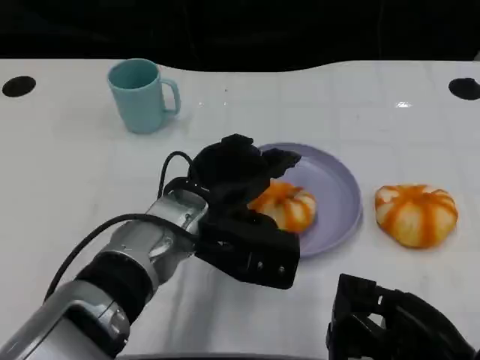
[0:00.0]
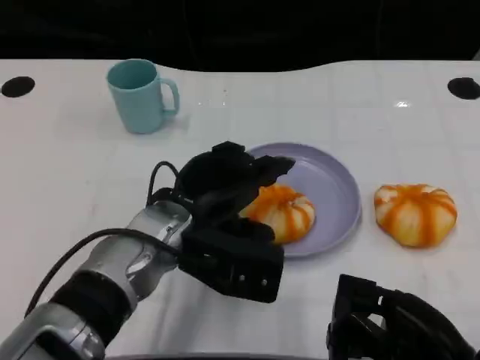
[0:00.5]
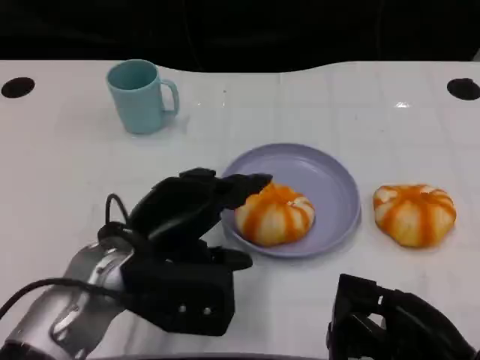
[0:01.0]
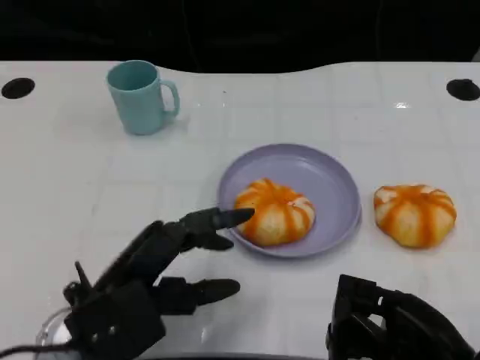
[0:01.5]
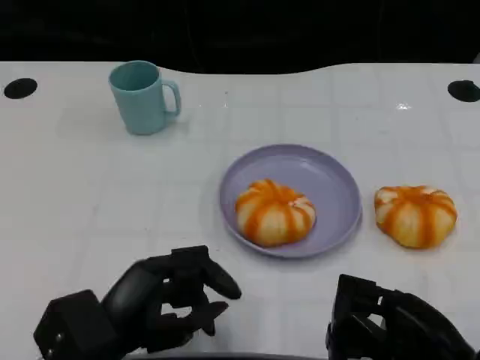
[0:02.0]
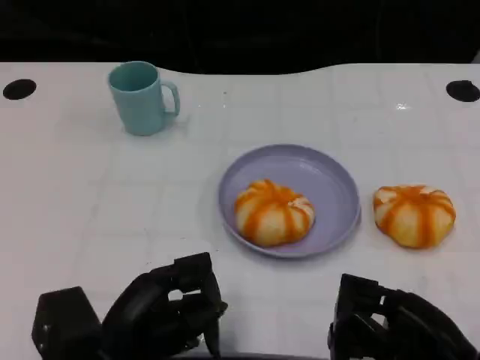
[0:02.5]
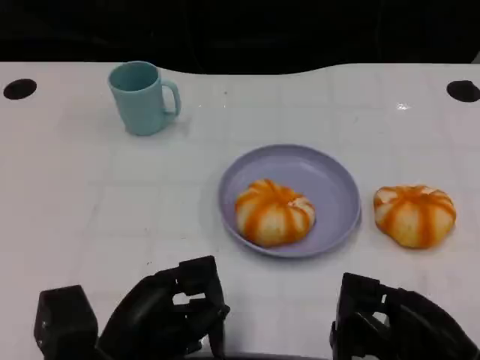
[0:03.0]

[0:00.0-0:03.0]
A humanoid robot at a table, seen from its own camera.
Task of the whole recording: Grasp the bread from the table and place it into the plate.
0.0 to 1.5 s: The left hand goes approximately 15 cm to the left and backward.

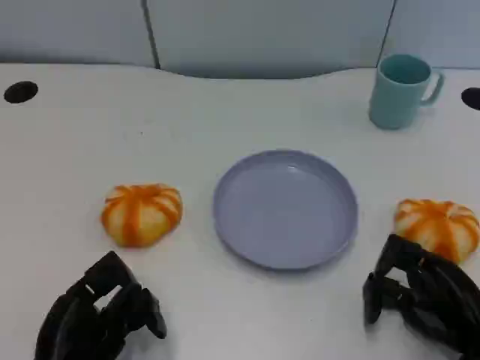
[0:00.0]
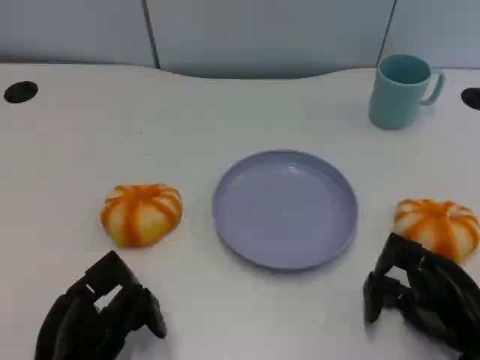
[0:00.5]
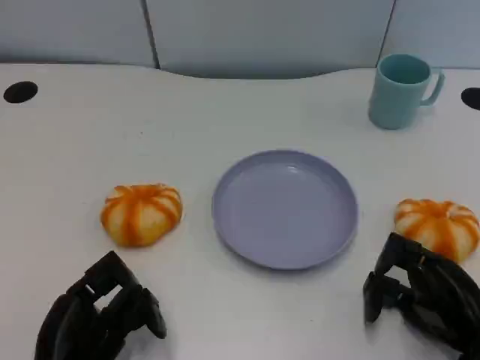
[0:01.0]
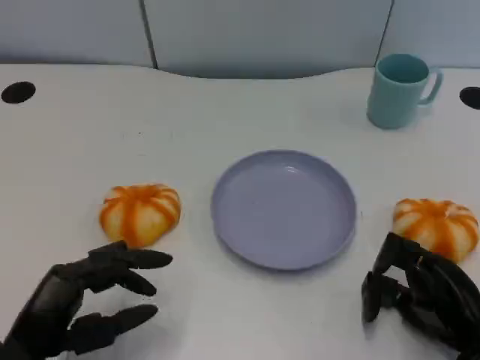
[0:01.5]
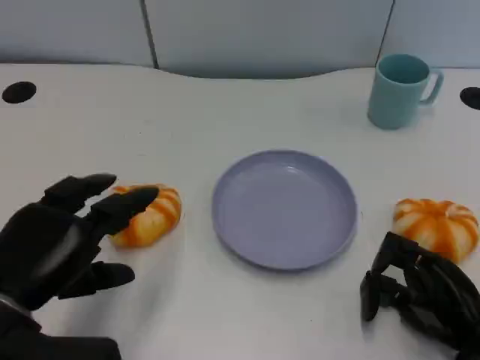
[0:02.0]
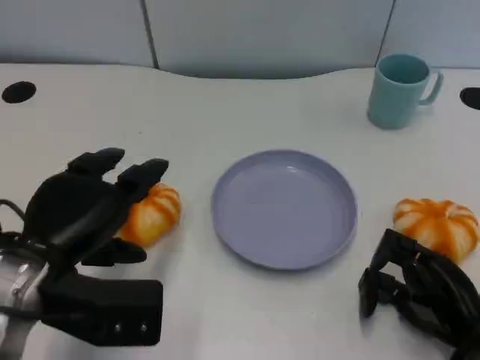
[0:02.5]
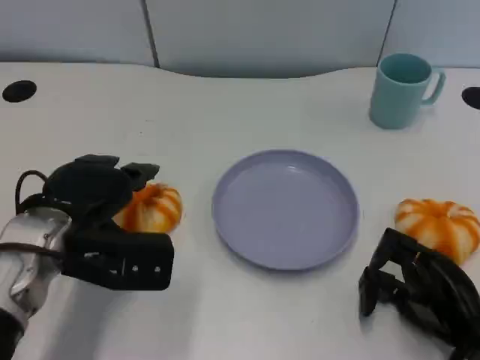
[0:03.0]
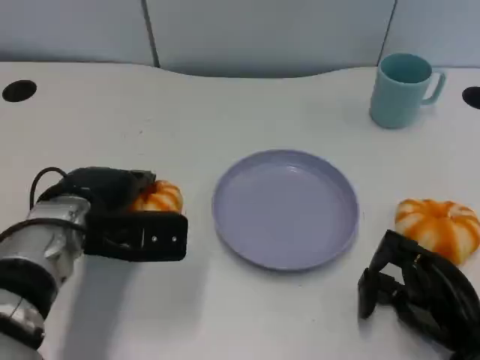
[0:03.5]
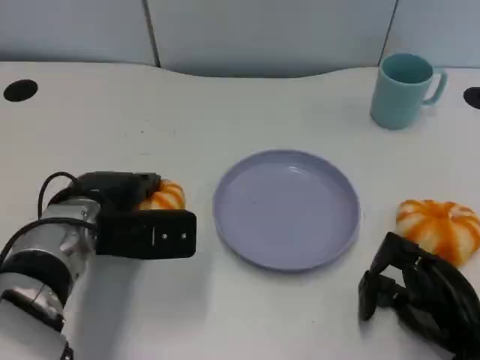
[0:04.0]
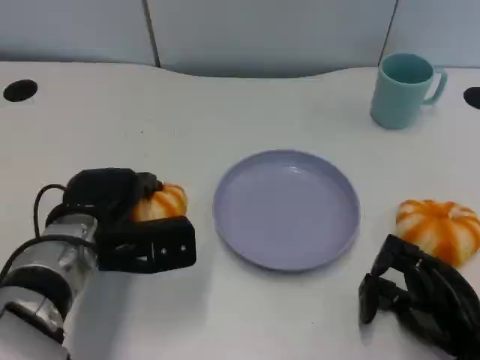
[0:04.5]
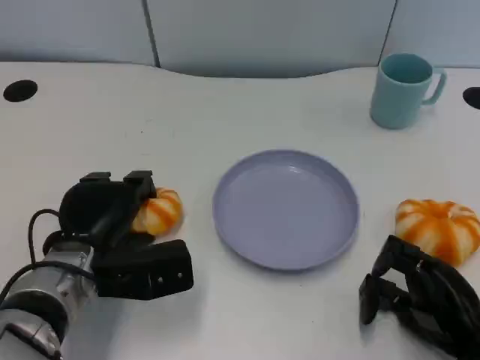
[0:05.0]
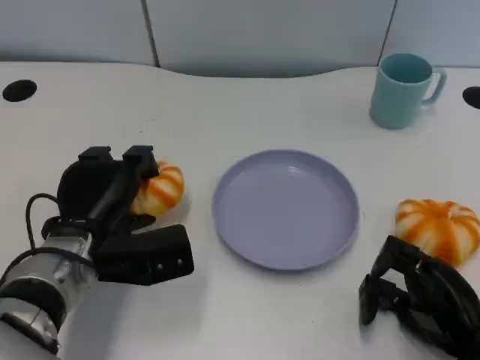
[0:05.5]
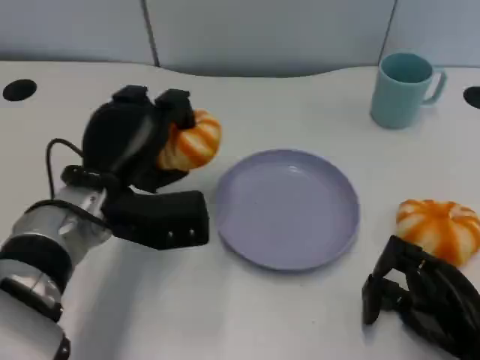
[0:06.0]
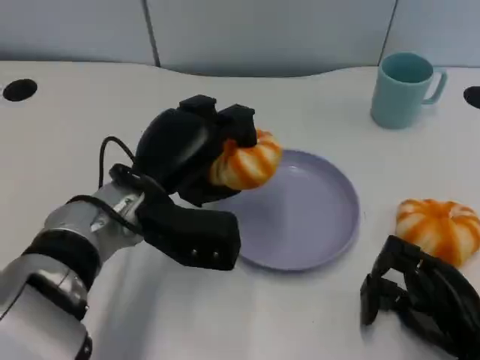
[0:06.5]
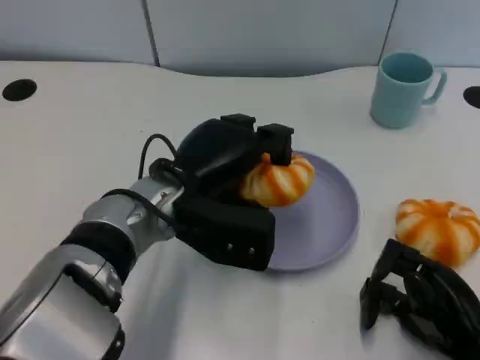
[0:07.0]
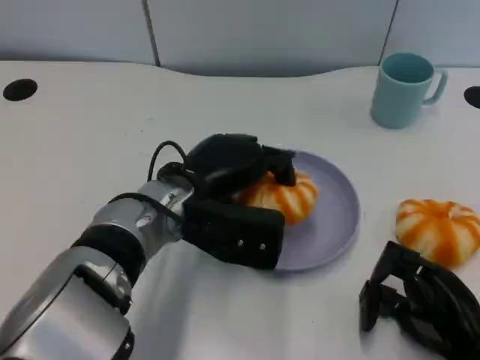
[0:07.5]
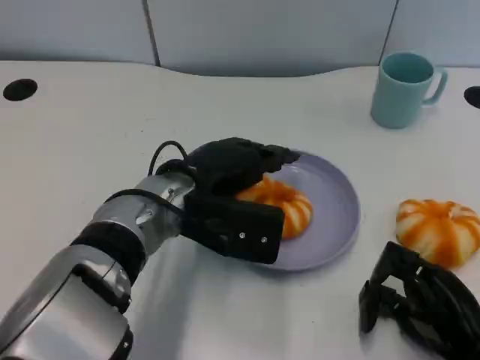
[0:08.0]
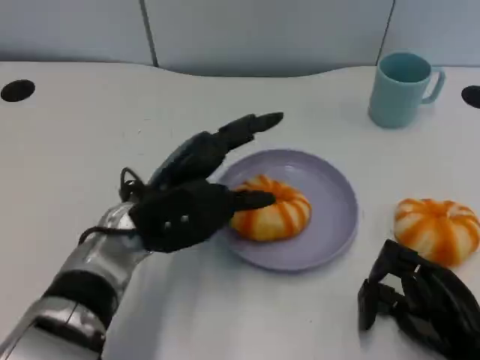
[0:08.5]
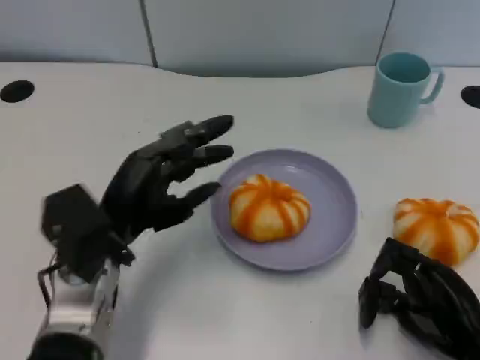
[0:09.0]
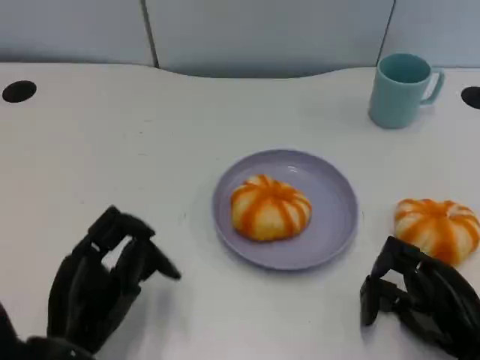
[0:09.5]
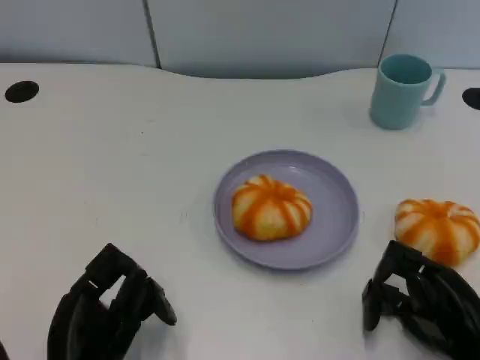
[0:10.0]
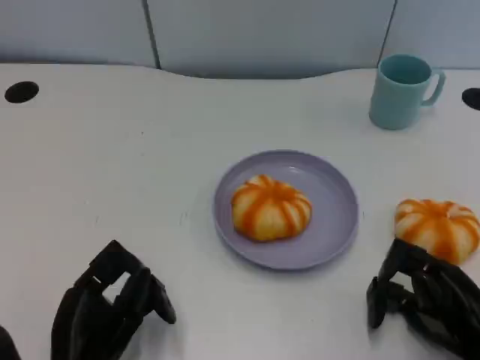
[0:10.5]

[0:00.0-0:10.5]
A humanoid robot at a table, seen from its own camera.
Task of the whole recording: Grasp the bread from the table and place it into the plate.
0.0 to 2.0 s: The left hand travels upward by some 10 cm.
2.0 to 4.0 s: The left hand travels forward and to the right by roughly 15 cm.
4.0 to 6.5 s: The left hand heads to the right, covering approximately 5 cm.
8.5 to 10.5 s: The left hand goes about 15 cm backward, downward and to the left.

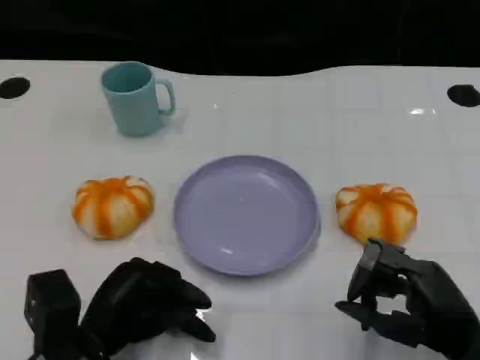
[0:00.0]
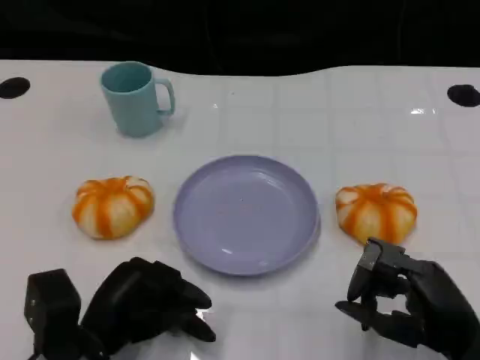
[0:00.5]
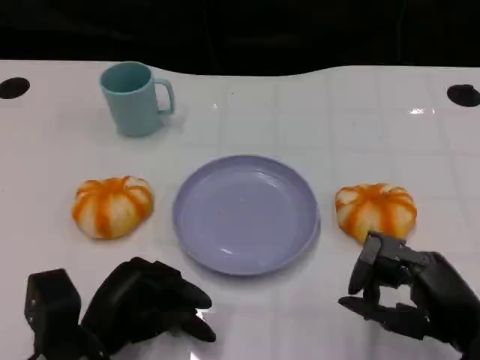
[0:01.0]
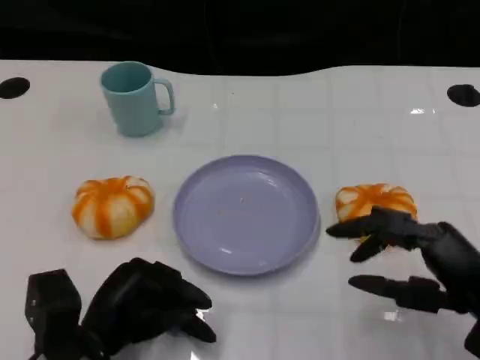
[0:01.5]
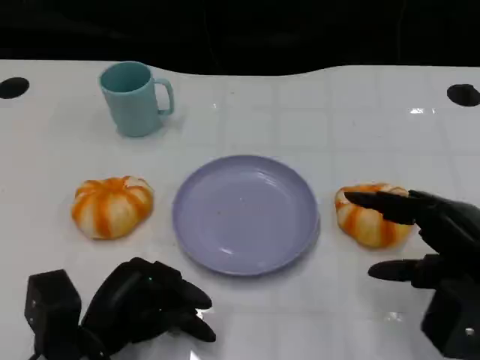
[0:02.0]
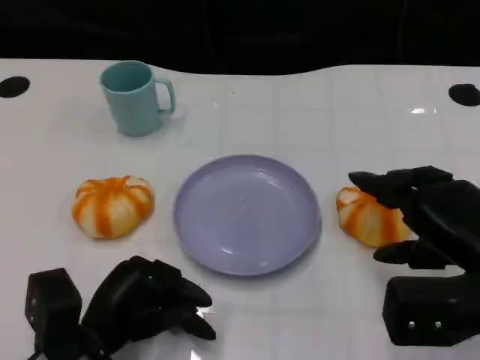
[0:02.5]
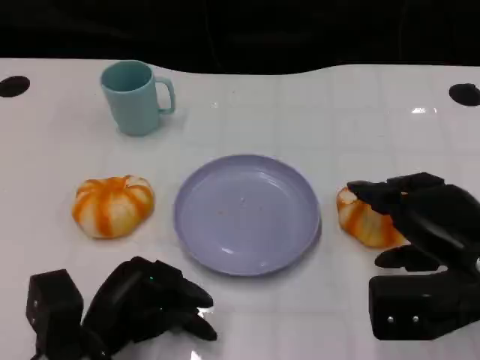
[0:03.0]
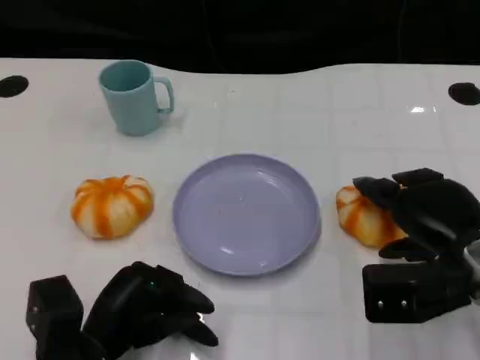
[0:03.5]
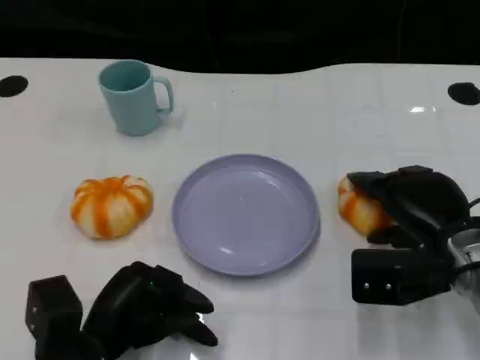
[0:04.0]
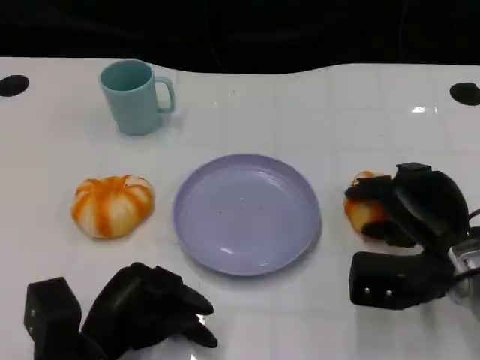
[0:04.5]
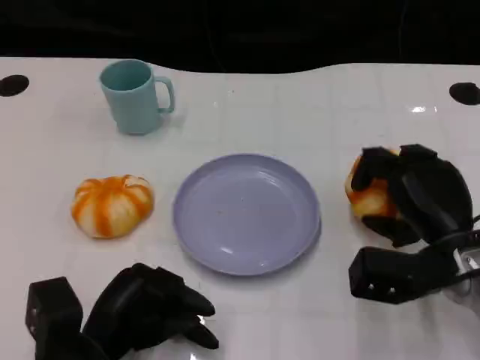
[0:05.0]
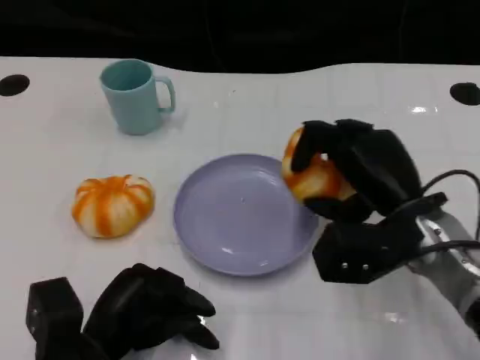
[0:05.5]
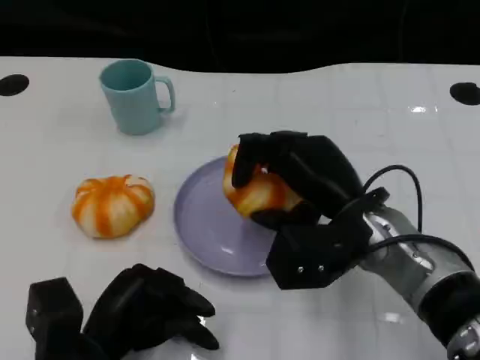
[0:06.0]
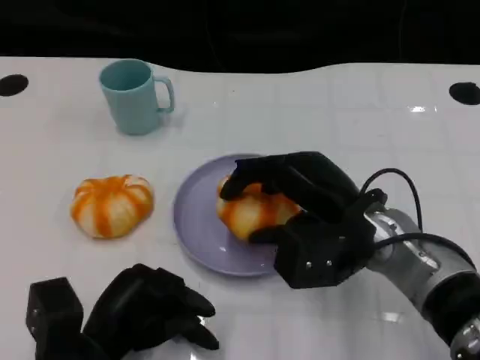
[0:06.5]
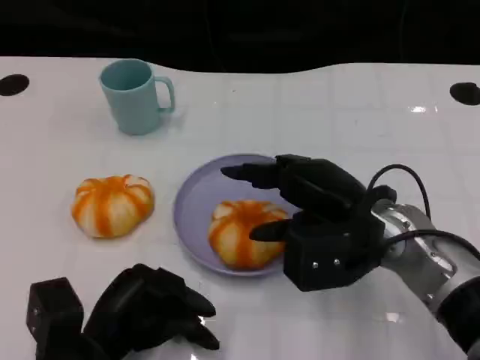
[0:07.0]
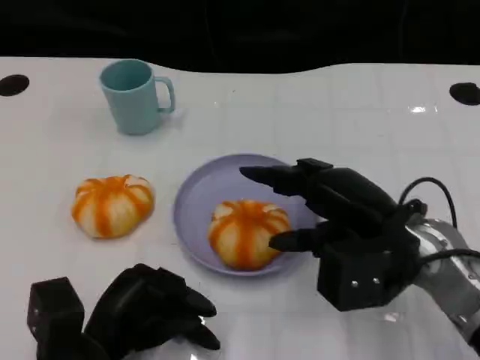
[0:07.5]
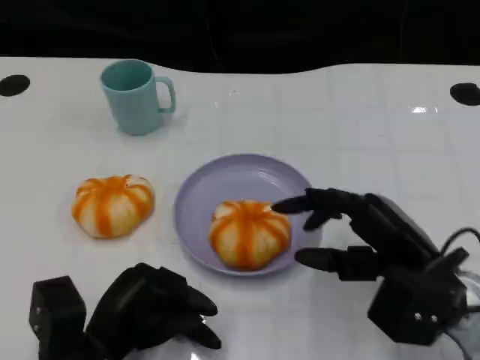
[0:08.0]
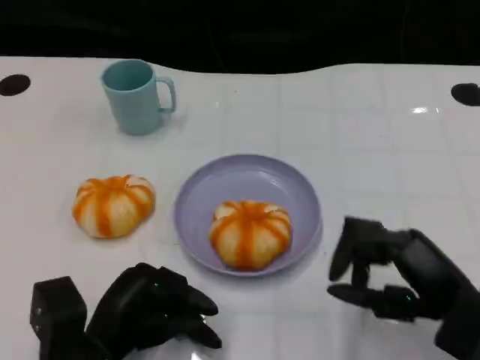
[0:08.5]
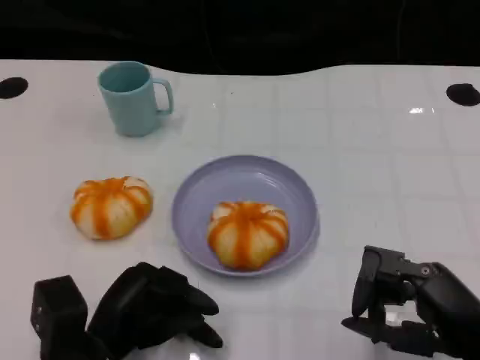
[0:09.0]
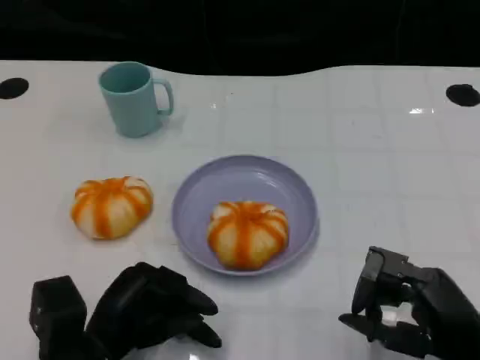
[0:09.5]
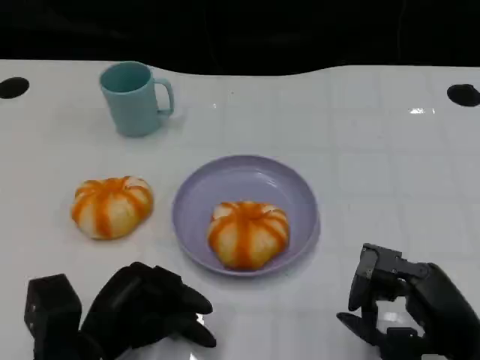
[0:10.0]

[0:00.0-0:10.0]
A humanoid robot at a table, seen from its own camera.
Task of the whole recording: Grasp the bread from the table and place it into the plate.
0.0 to 2.0 s: The right hand shifts about 5 cm upward.
2.0 to 4.0 s: The right hand is displaced forward and downward by about 10 cm.
4.0 to 6.0 s: The right hand travels to the left by about 10 cm.
6.0 to 8.0 s: The right hand goes about 10 cm to the right and backward.
8.0 to 10.0 s: The right hand goes approximately 5 cm backward.

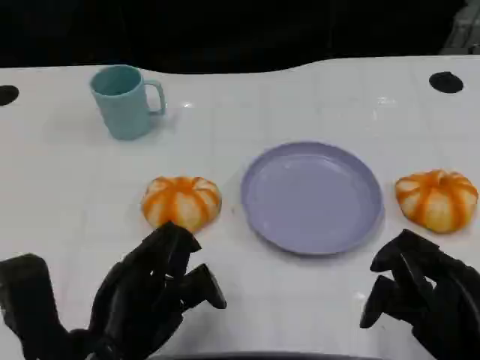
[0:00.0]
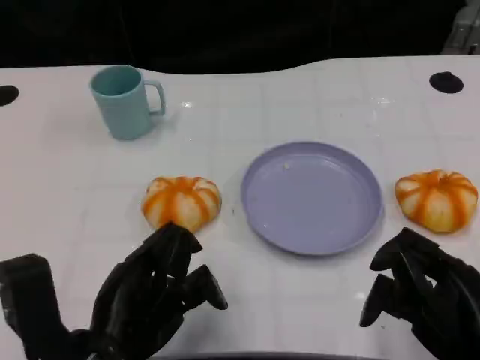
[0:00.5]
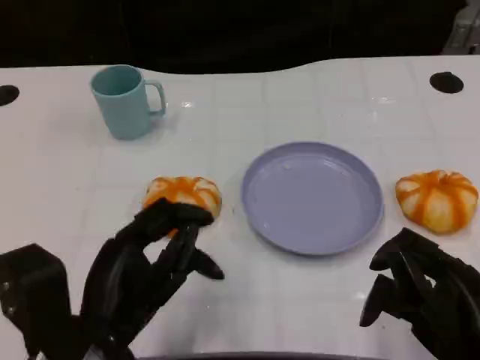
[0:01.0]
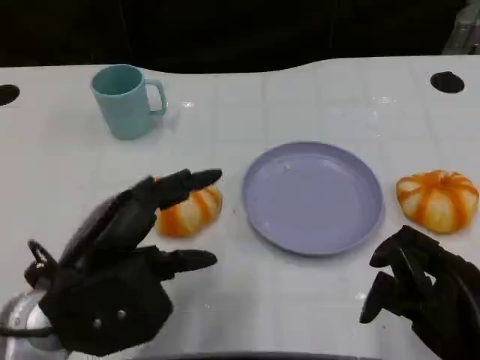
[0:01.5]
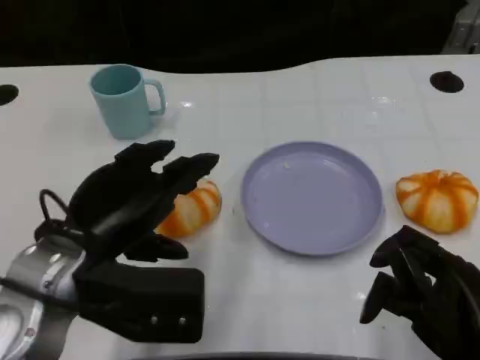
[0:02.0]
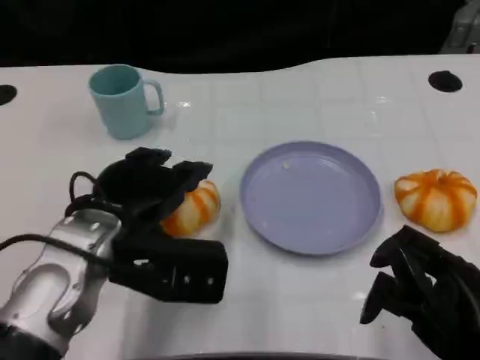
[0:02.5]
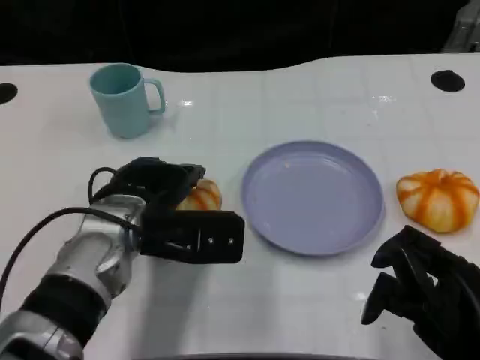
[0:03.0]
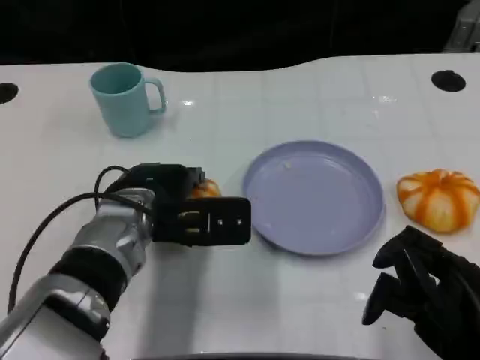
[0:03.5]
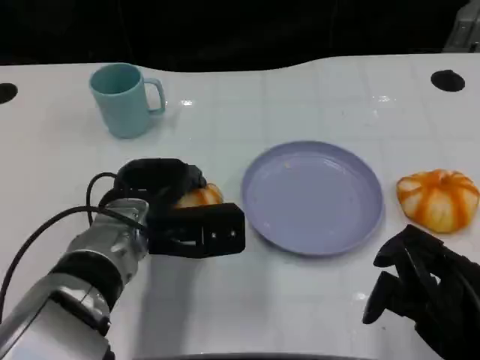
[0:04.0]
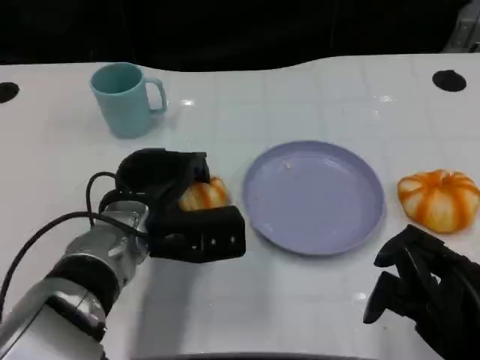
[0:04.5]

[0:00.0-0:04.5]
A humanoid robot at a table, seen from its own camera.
Task of the whole recording: Grasp the bread from the table and place it into the plate.
0.0 to 2.0 s: The left hand shifts roughly 10 cm upward and forward.
2.0 to 4.5 s: The left hand moves forward, downward and to the right, roughly 10 cm.
